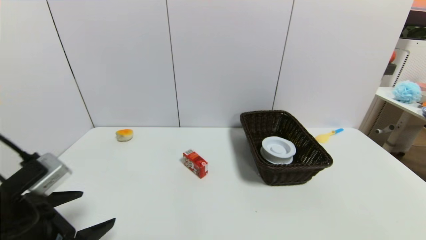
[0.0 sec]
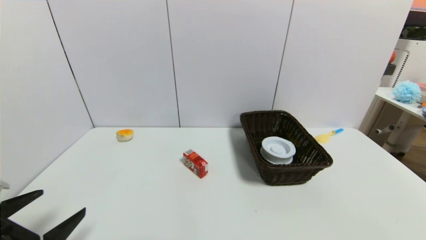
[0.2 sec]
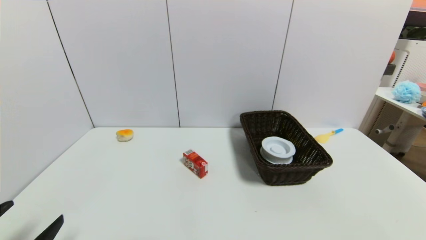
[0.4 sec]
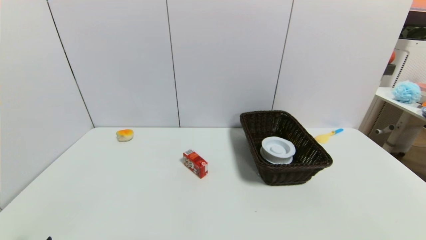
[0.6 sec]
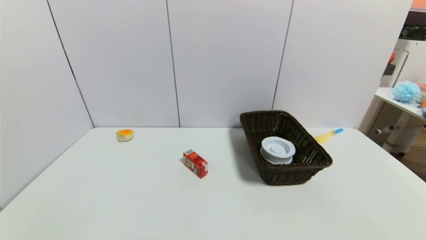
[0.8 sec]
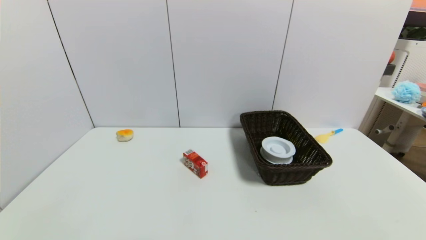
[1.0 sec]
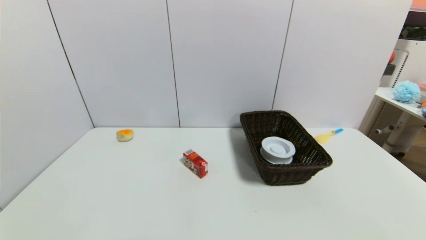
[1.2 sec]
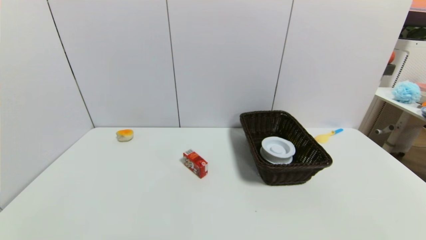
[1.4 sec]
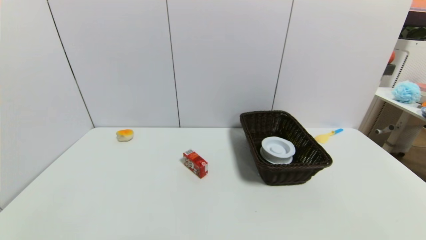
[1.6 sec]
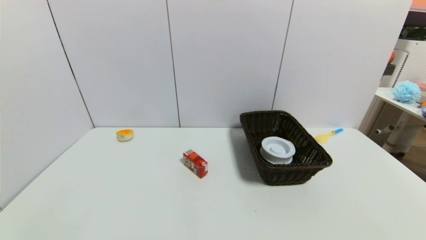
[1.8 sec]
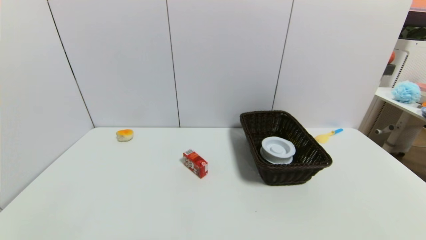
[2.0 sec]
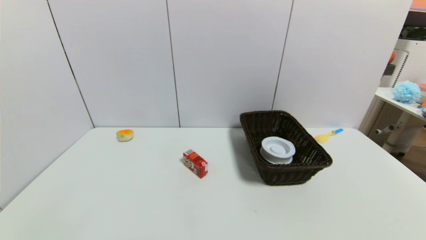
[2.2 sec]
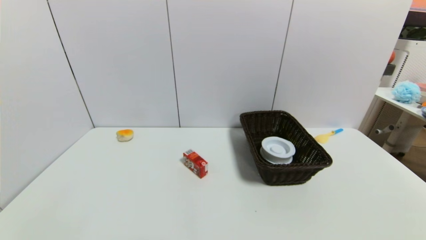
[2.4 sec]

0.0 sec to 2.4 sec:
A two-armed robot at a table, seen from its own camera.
Task of the whole recording: use a gripper to pick the target object and place on the brown basket.
0.0 sec to 1.2 sec: The left gripper moves backward and downward, roughly 15 cm.
1.2 sec to 2.4 sec: The two grippers keep their place.
